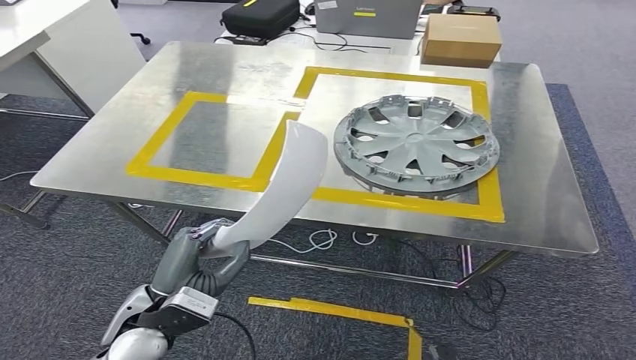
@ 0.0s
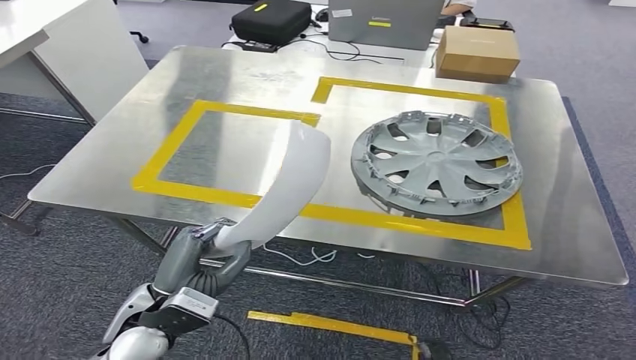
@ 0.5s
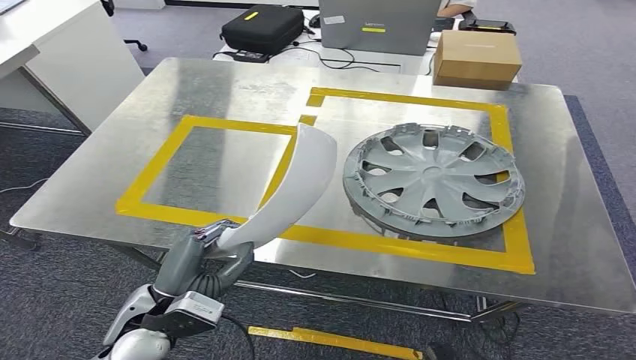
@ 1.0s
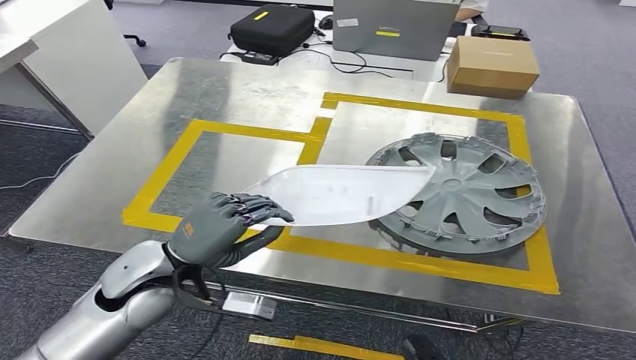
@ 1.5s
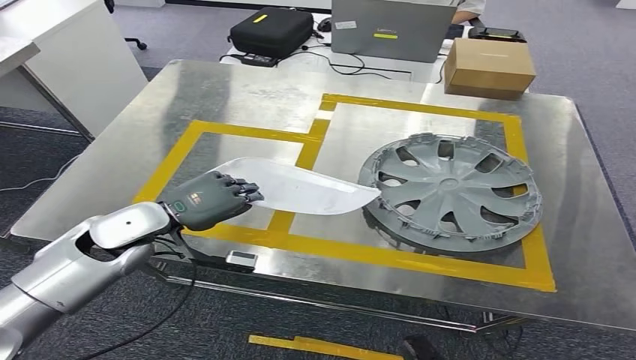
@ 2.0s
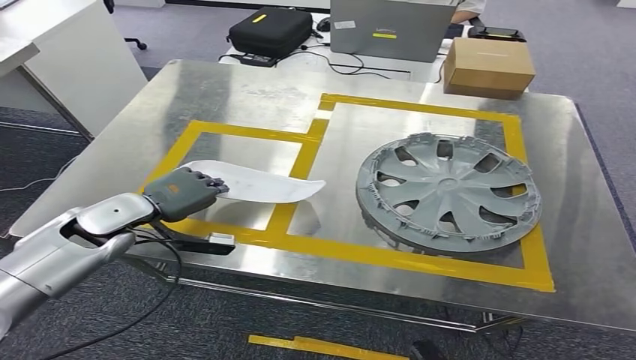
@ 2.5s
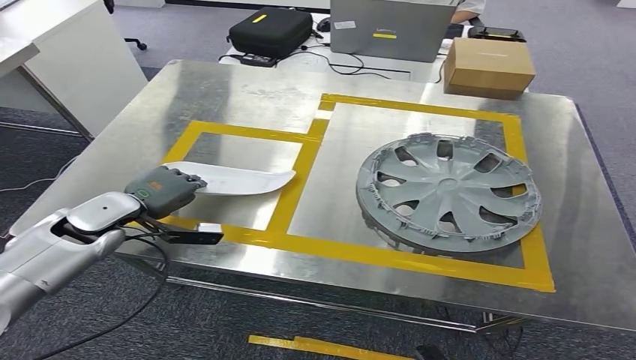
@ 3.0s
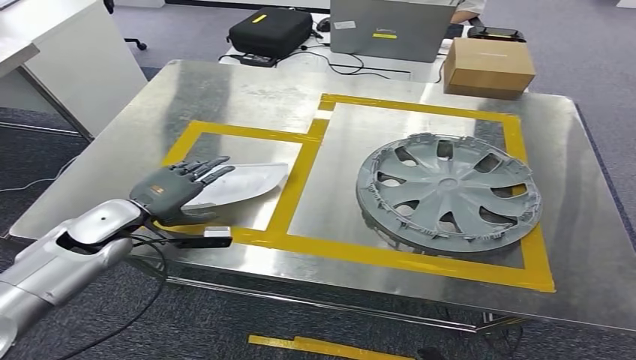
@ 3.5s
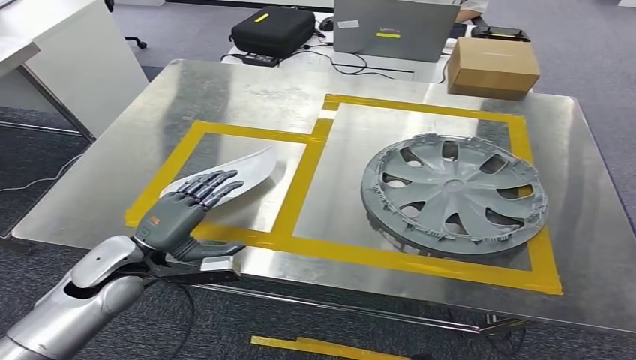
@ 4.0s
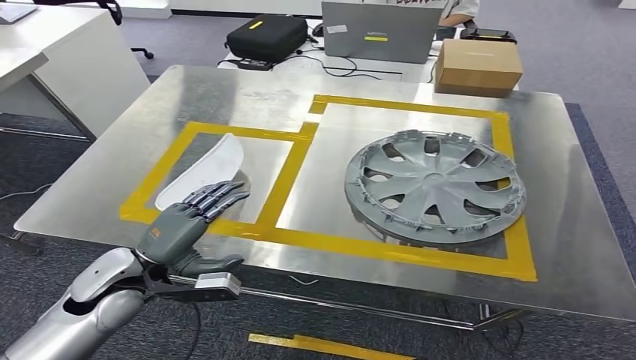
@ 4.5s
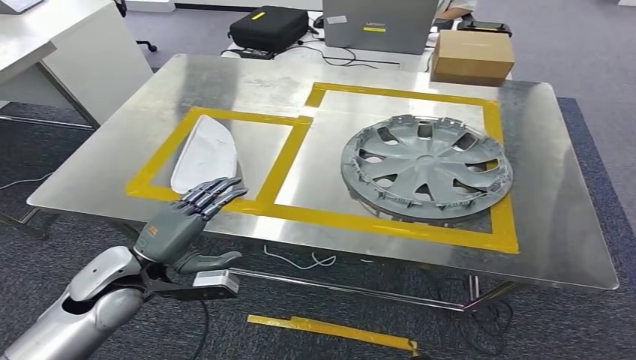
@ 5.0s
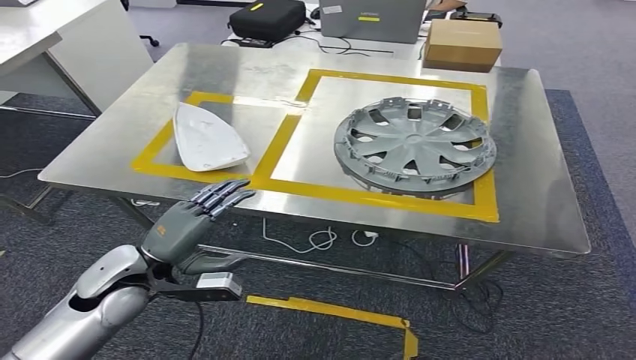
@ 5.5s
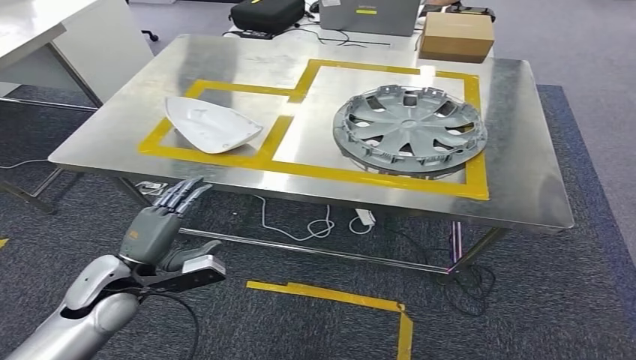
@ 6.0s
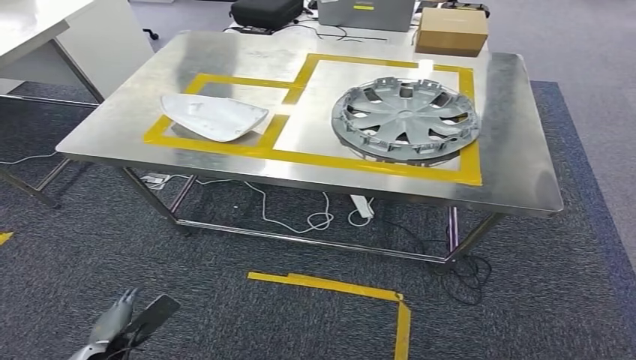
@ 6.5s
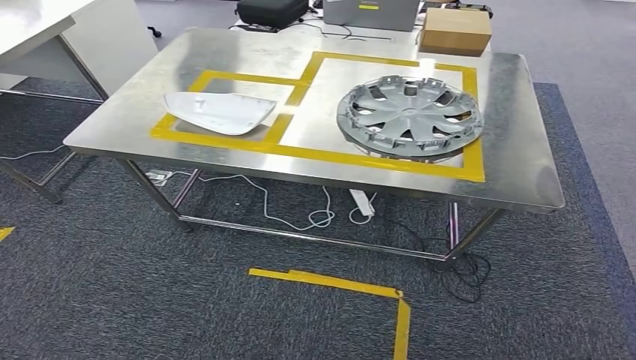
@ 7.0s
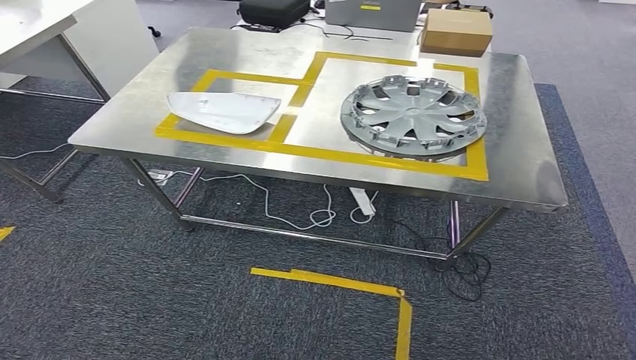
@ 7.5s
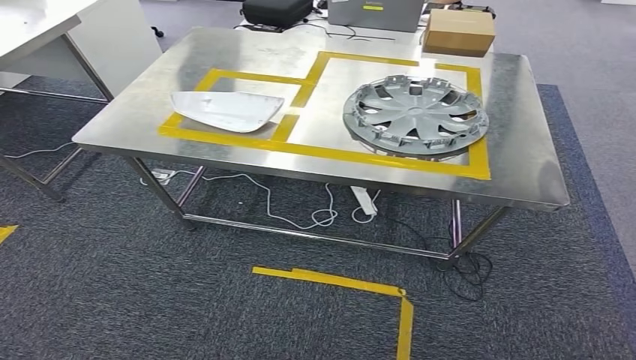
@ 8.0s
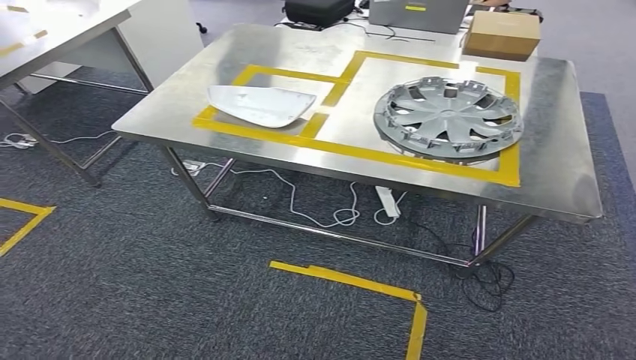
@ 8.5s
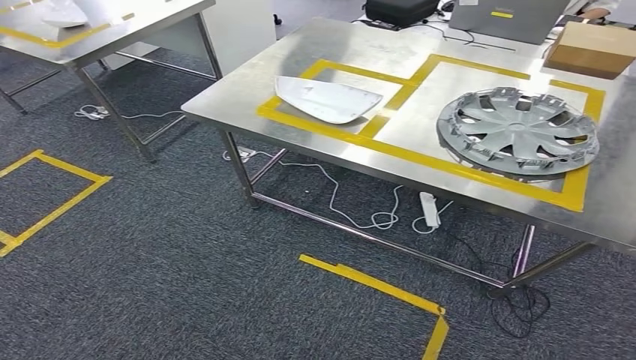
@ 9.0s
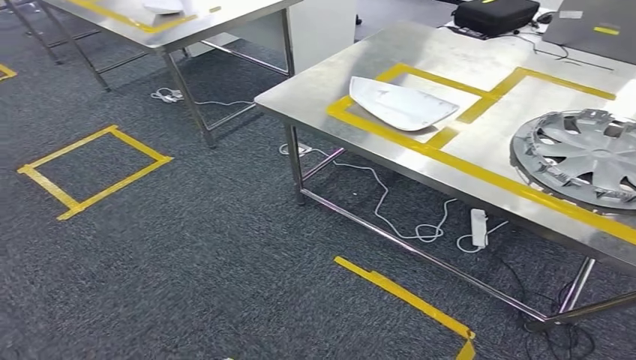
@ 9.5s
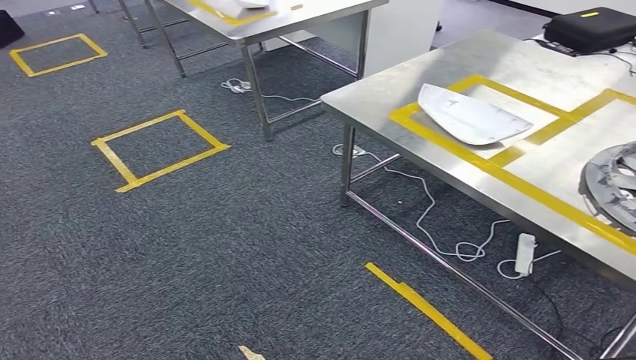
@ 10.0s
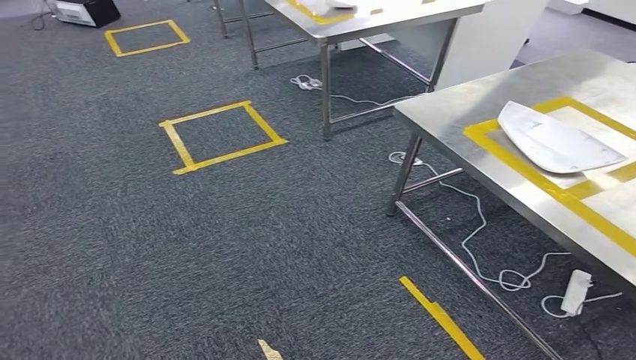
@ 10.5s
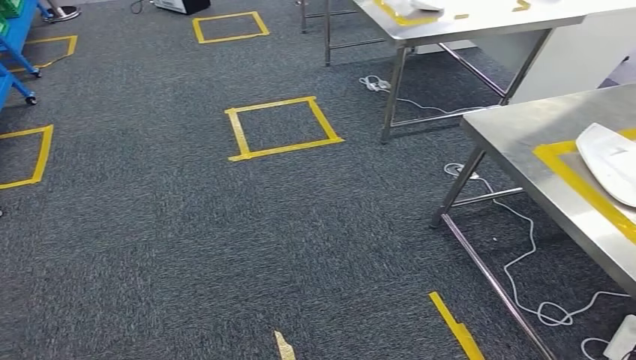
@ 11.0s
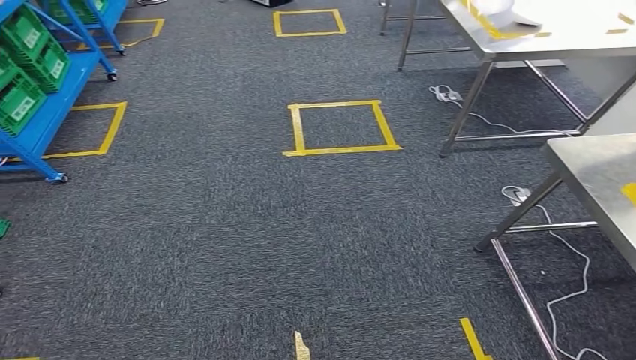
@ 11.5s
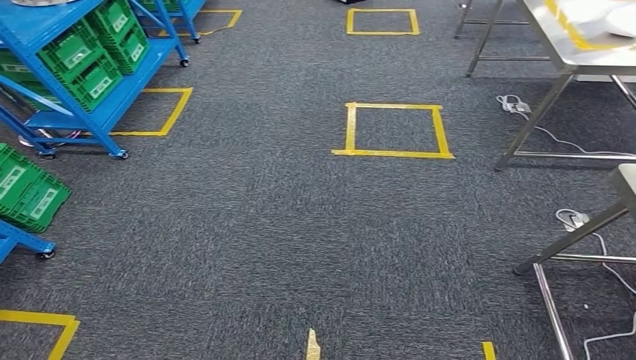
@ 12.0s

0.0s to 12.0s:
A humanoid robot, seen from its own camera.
Step, 1.0s to 5.5s: Insert the small component into the corresponding slot on the workbench.
2.0s to 4.0s: The left hand is displaced downward by approximately 5 cm.

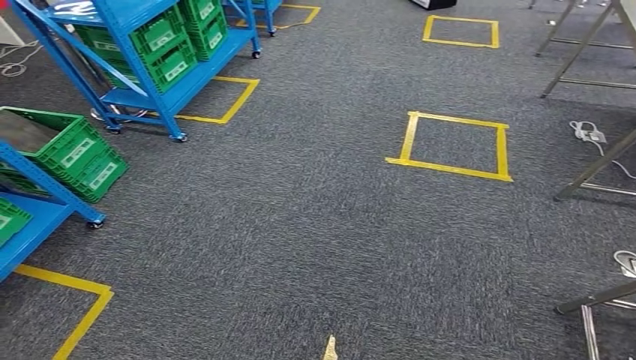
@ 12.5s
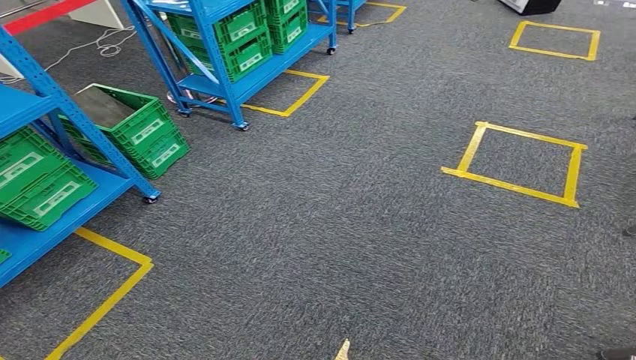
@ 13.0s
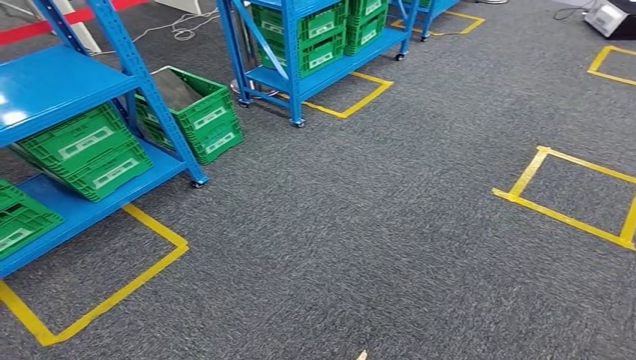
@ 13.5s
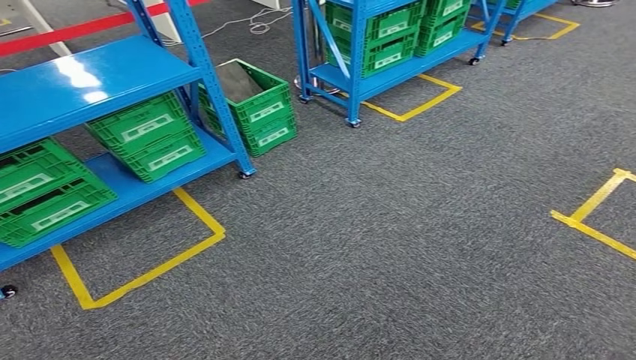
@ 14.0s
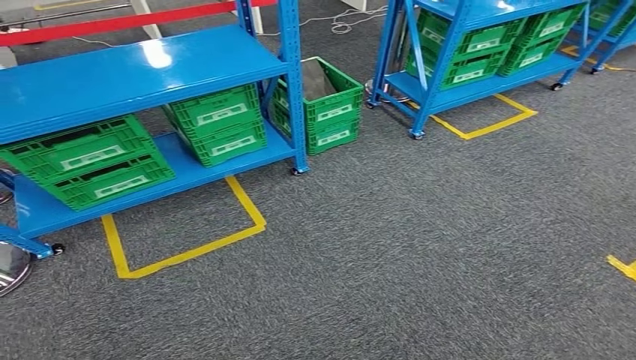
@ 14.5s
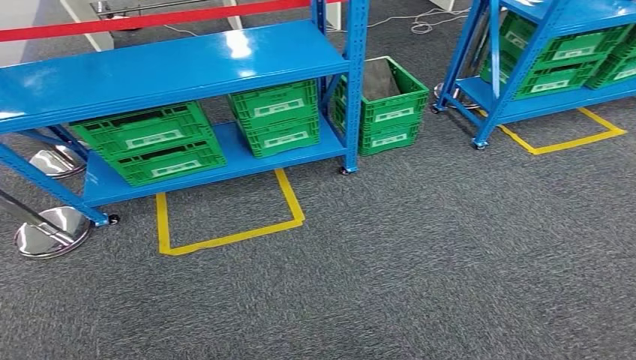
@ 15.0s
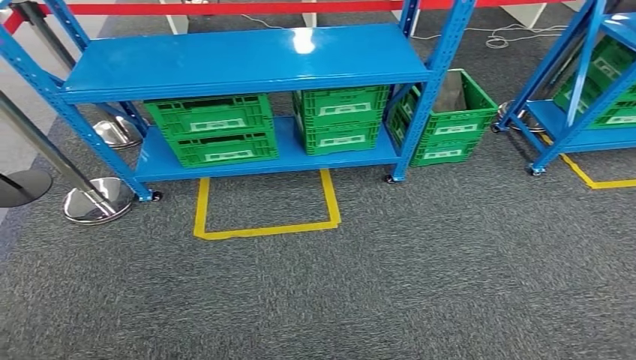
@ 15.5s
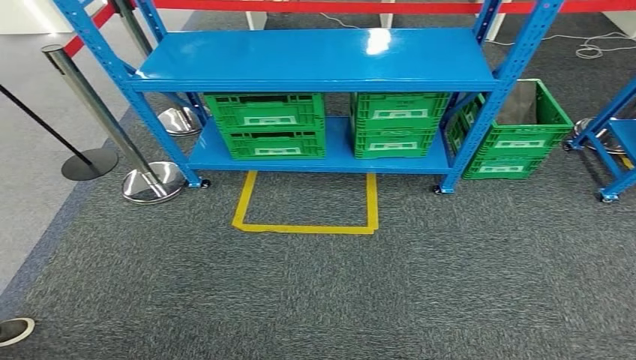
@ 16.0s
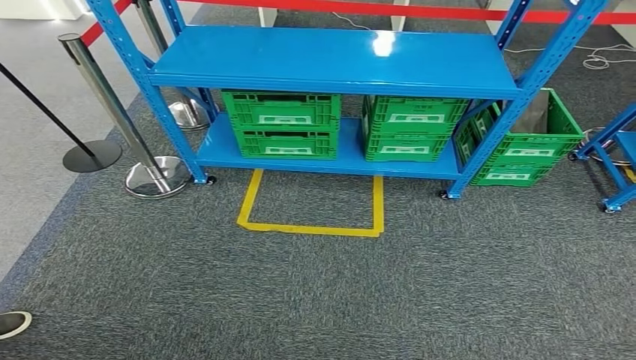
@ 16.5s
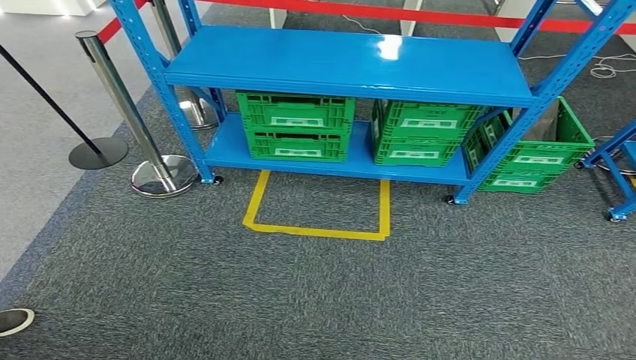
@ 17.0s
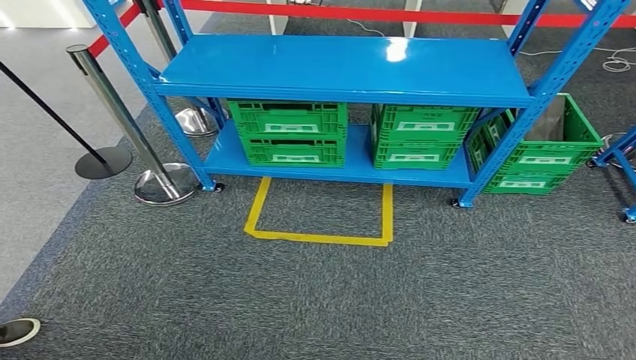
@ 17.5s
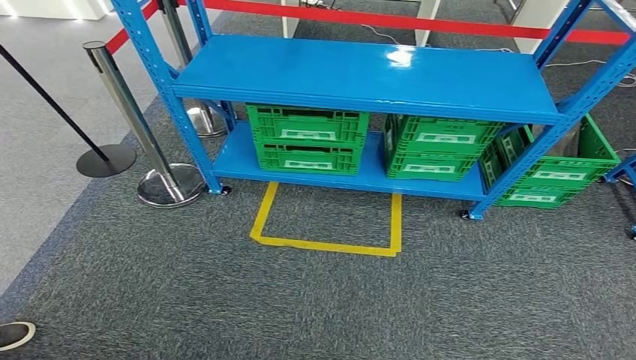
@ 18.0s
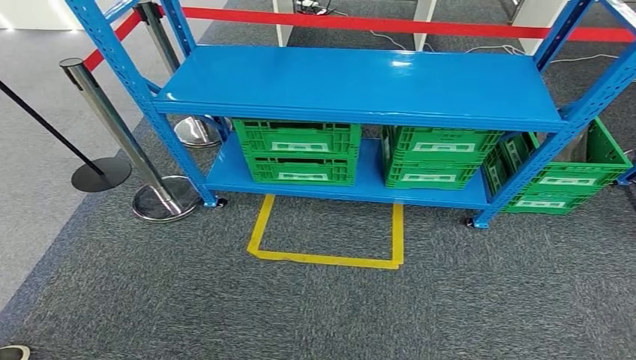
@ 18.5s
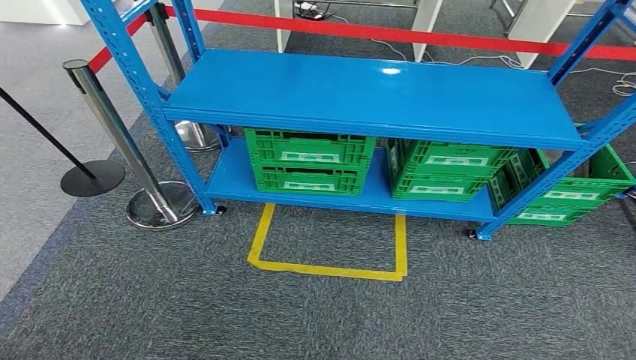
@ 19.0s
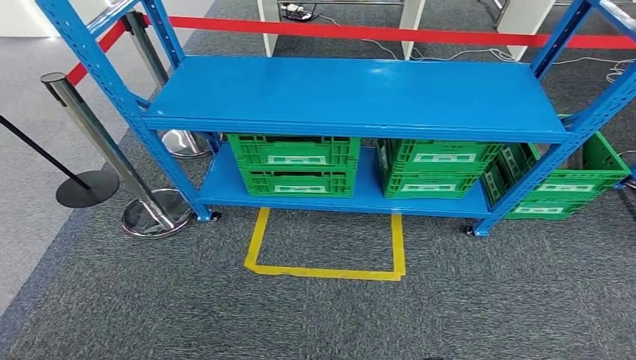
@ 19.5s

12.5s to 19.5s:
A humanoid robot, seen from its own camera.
Step, 12.5s to 19.5s: Move to the initial position at the workbench.
